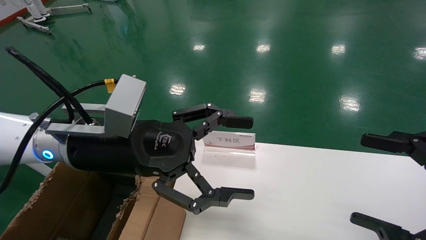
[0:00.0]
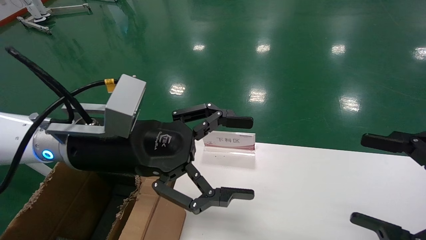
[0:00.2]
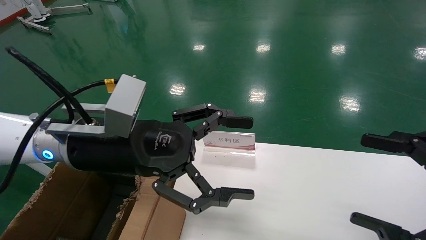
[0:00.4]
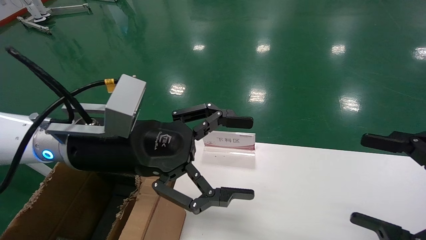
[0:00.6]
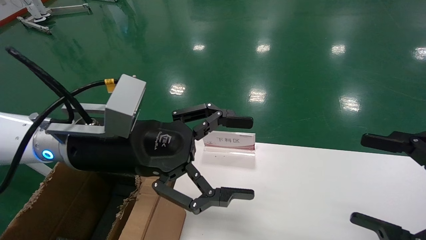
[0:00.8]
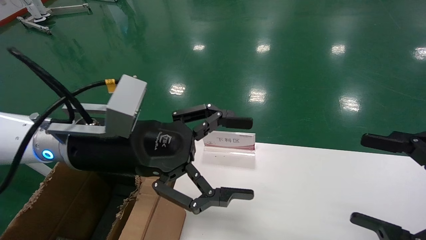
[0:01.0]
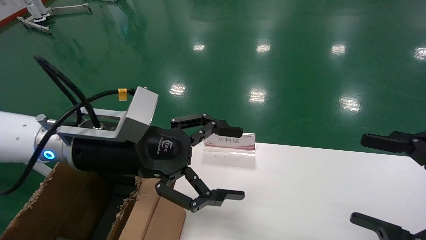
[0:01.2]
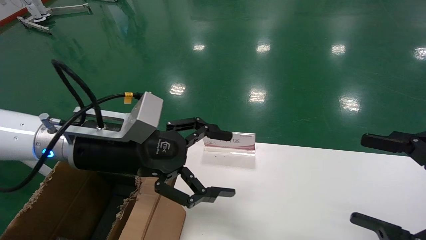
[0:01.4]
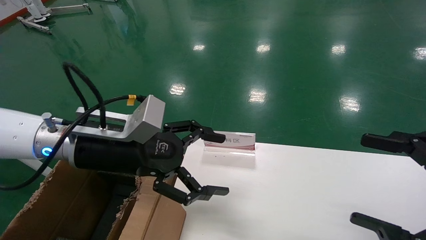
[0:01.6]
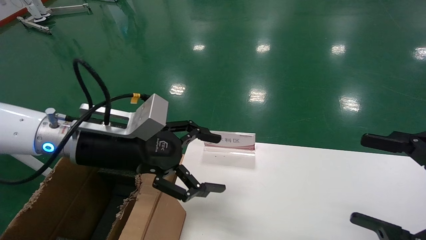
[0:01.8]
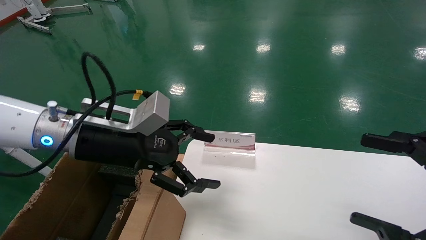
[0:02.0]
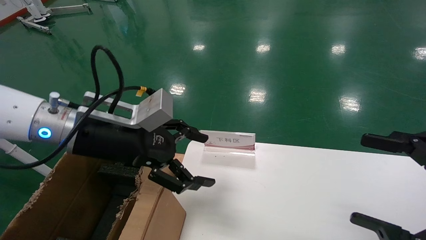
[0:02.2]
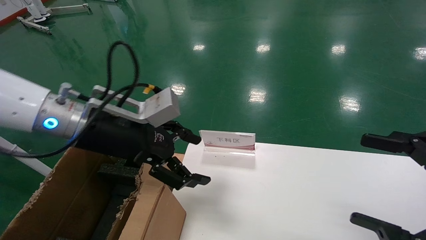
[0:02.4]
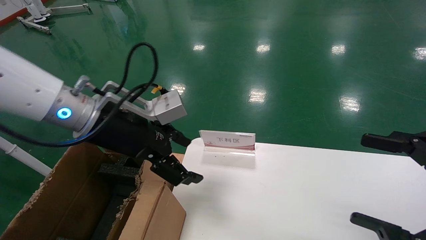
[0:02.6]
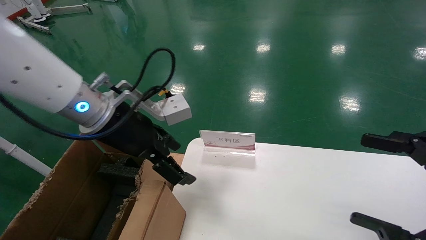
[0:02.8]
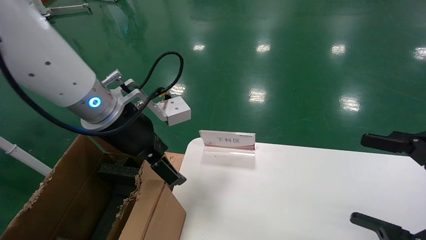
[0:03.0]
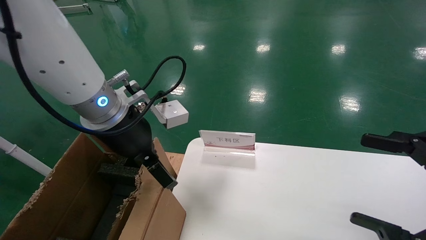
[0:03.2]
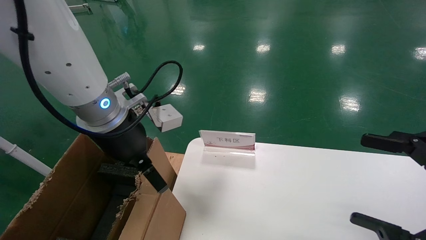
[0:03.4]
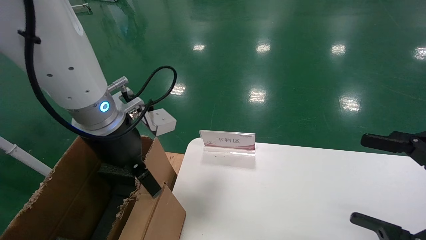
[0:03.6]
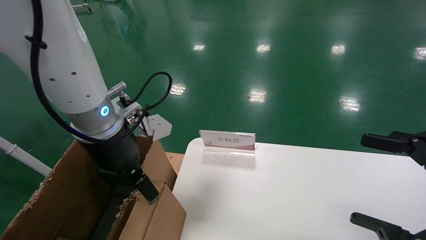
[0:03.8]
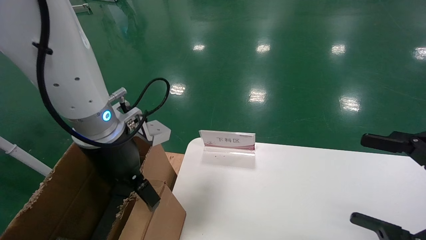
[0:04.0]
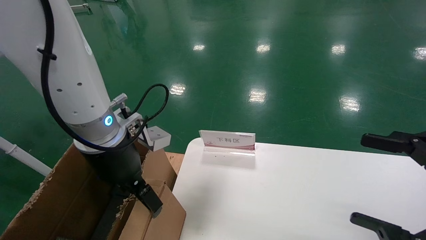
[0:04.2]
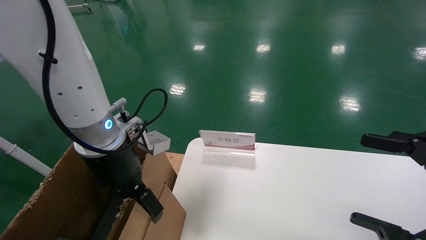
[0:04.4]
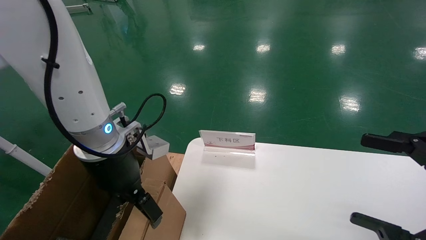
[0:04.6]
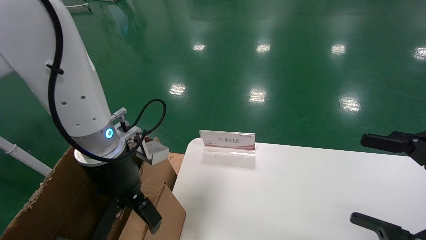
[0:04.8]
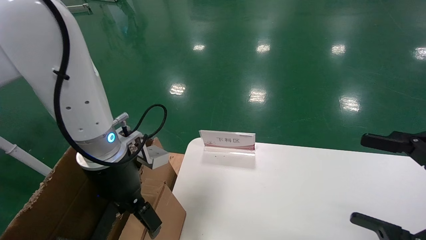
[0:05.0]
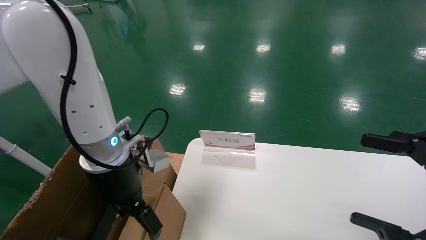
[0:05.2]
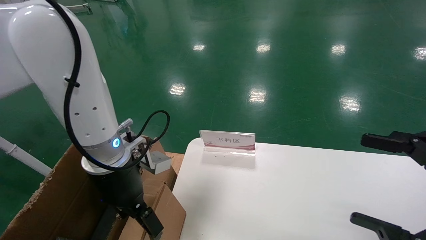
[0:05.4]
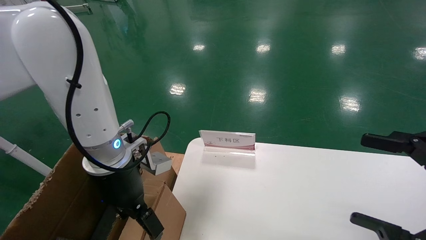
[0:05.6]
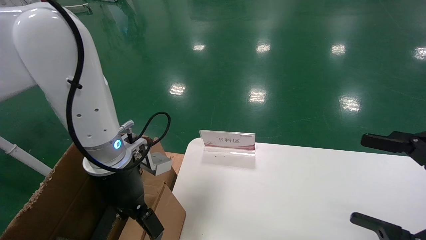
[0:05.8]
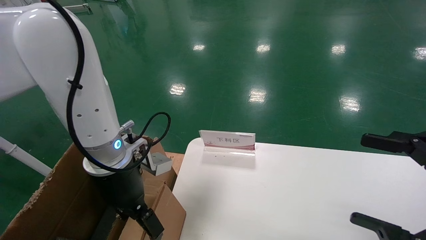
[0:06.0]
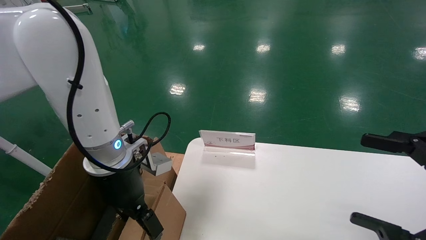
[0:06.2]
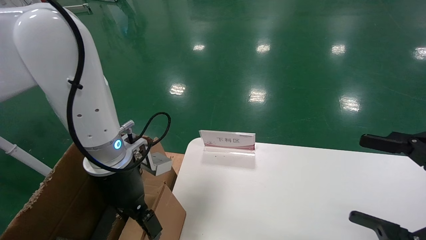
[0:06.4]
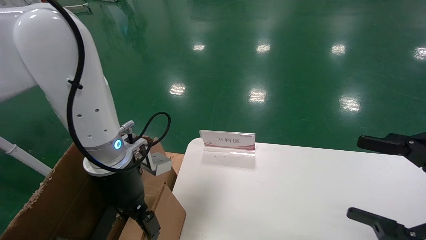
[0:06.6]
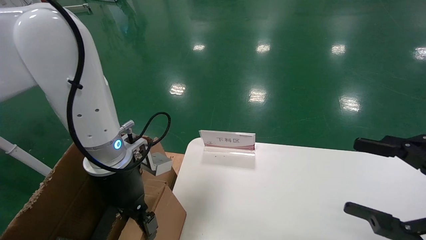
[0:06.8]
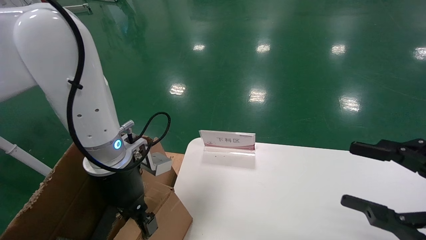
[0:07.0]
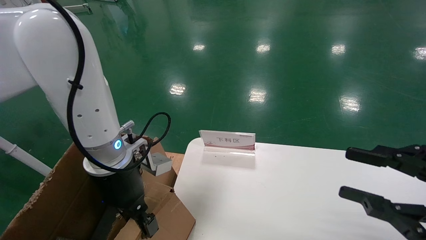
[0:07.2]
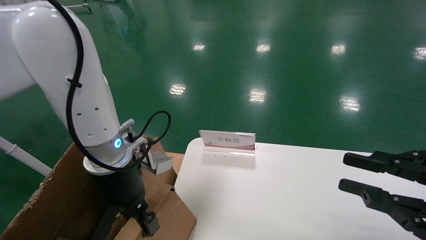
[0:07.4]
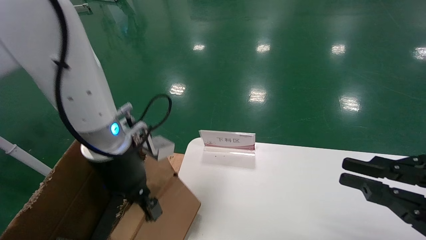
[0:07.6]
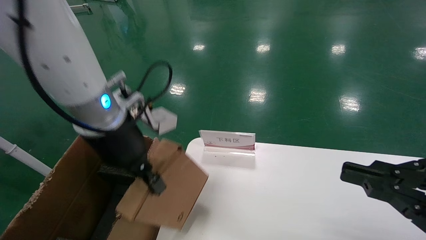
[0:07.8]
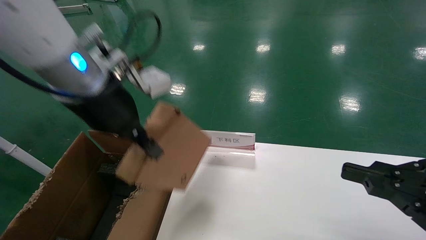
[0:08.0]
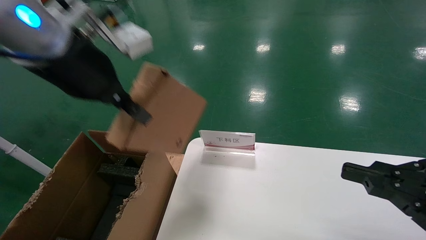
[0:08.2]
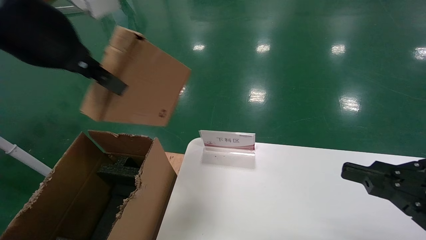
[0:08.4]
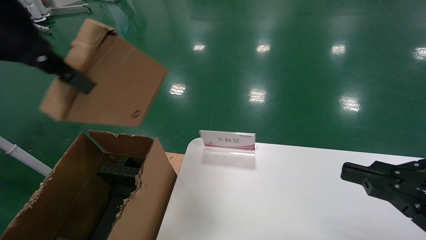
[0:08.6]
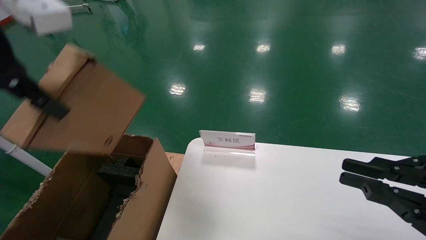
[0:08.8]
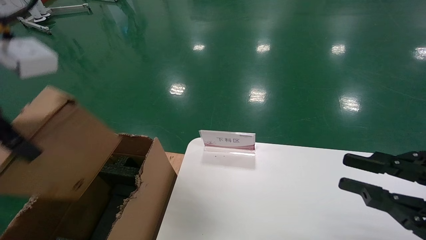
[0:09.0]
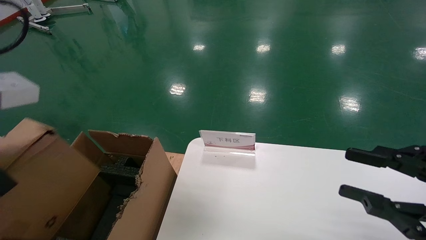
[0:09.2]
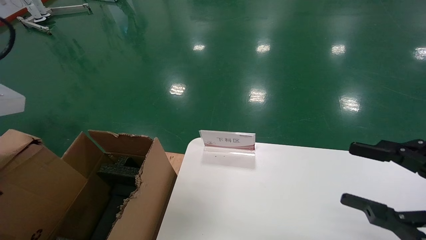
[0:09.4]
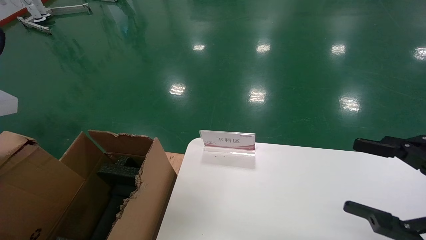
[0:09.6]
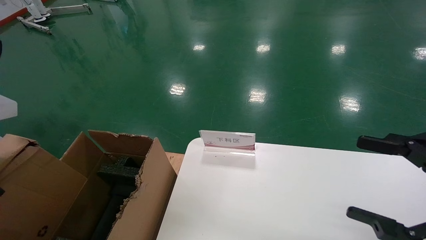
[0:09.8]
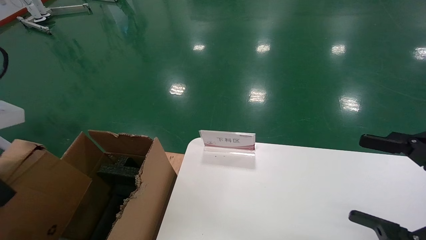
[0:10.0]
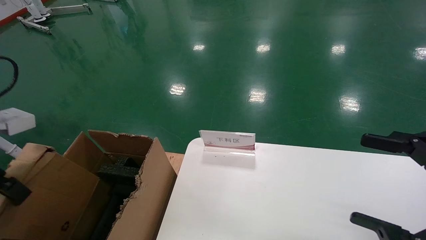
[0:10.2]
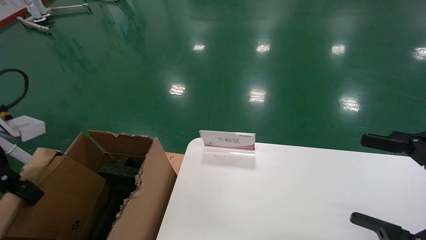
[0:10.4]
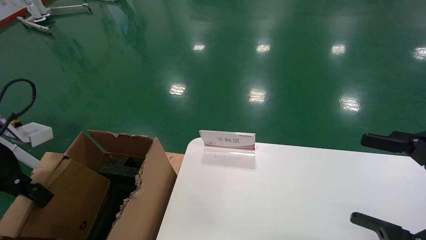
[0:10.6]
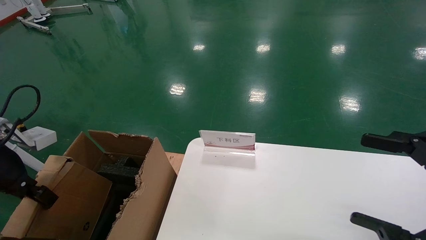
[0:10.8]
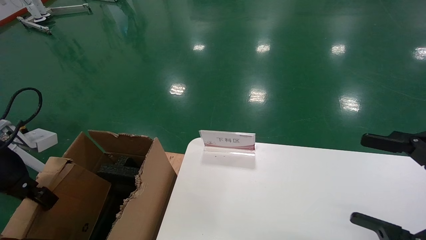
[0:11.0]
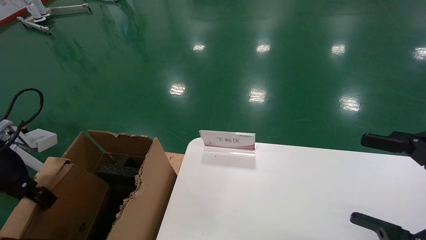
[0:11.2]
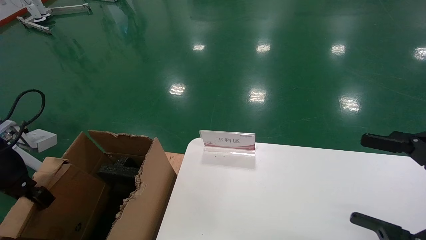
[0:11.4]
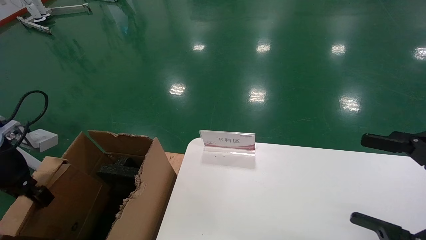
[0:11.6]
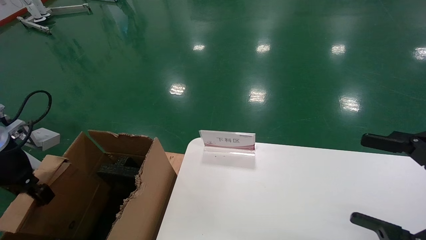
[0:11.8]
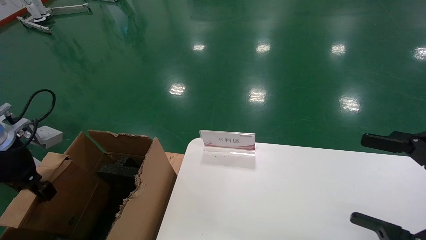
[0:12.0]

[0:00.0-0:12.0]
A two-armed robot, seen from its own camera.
Task of the whole recording: pick up the small cardboard box and load it into the large cardboard box.
Step, 0:00.0 to 0:07.0: Grasp the paper box.
0:01.6 to 0:03.0: The left gripper ends up some 5 cm from where it was.
0:04.4 to 0:06.0: The grippers stay close to where they were, moving slightly.
0:06.0 to 0:07.6: The left gripper closes, while the right gripper closes.
0:07.6 to 0:09.0: The left gripper heads upward, backward and to the left, covering roughly 20 cm.
0:09.0 to 0:10.4: The left gripper travels to the left and downward by about 20 cm; the right gripper opens.
0:10.4 to 0:12.0: The left gripper heads forward, covering about 5 cm.

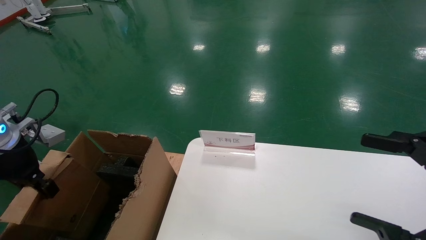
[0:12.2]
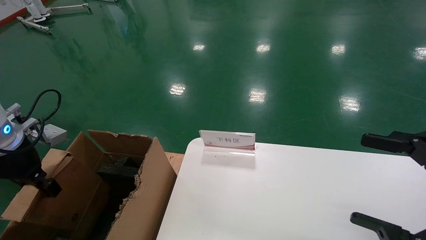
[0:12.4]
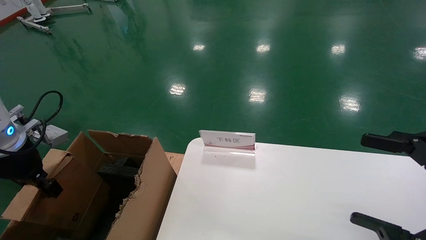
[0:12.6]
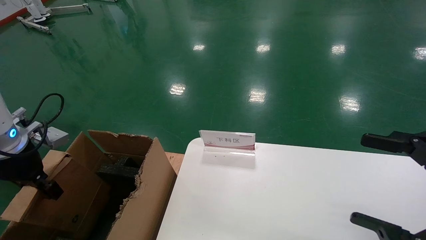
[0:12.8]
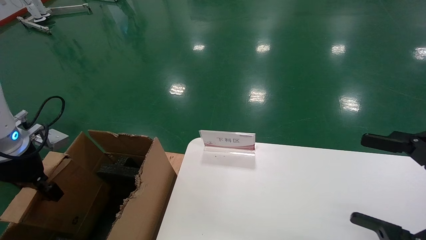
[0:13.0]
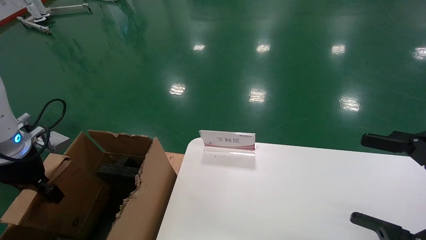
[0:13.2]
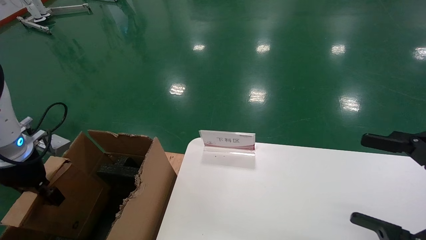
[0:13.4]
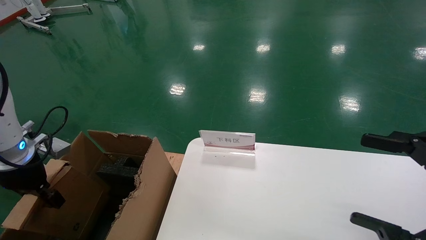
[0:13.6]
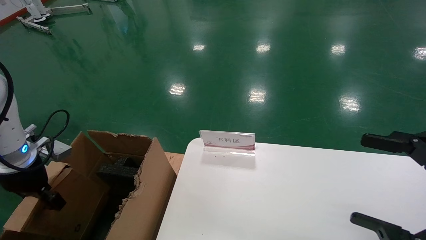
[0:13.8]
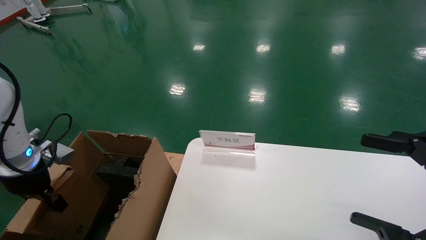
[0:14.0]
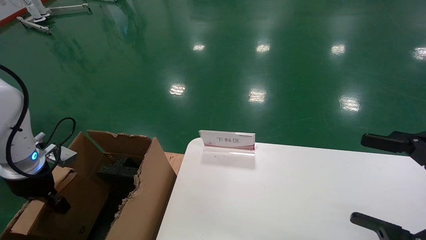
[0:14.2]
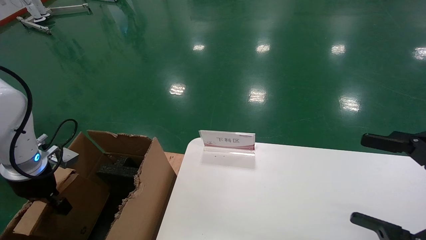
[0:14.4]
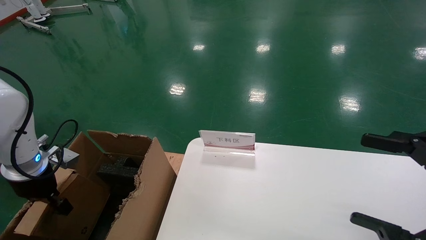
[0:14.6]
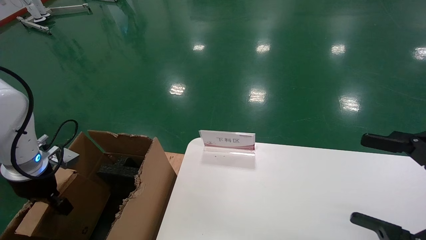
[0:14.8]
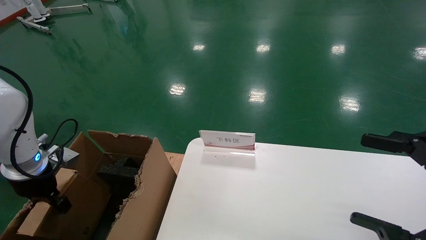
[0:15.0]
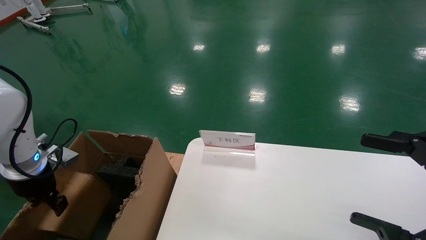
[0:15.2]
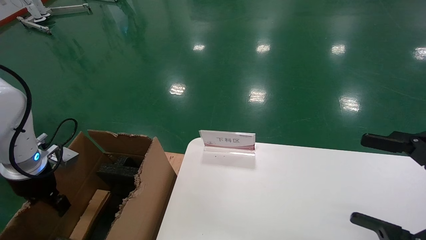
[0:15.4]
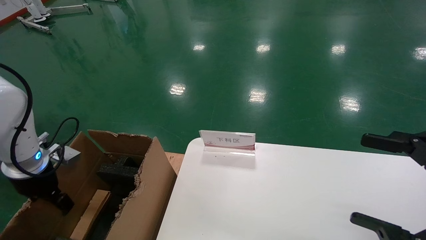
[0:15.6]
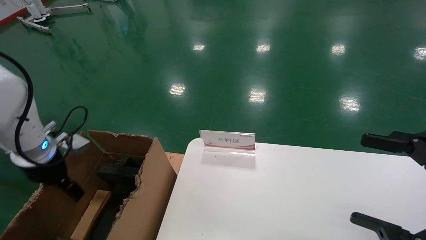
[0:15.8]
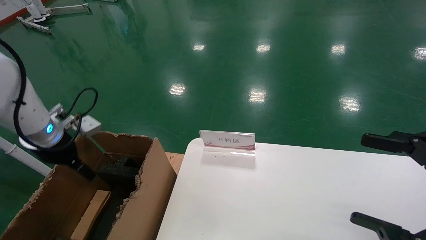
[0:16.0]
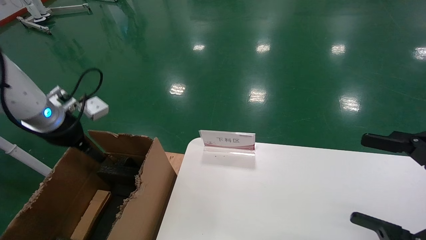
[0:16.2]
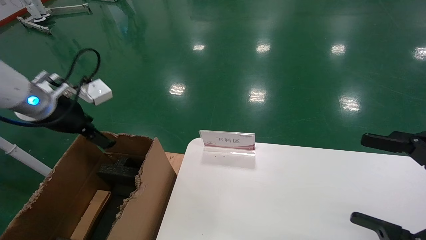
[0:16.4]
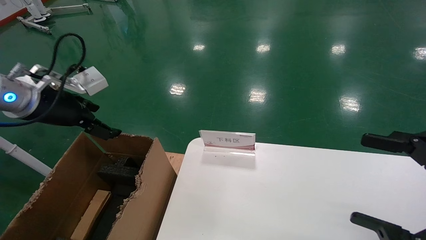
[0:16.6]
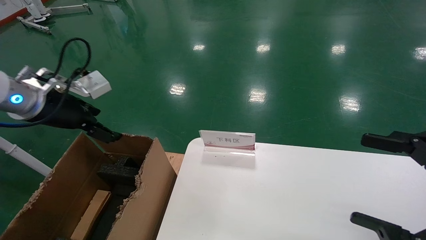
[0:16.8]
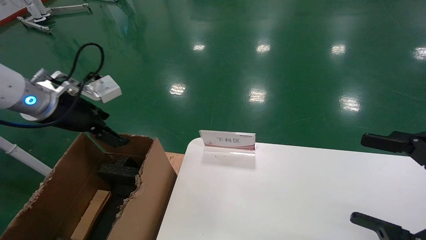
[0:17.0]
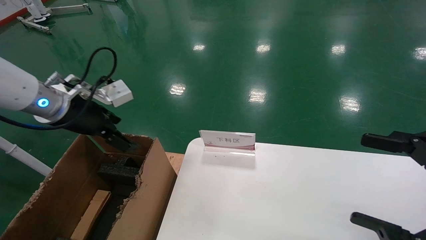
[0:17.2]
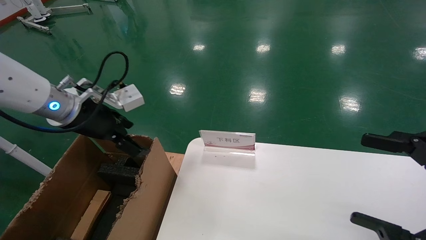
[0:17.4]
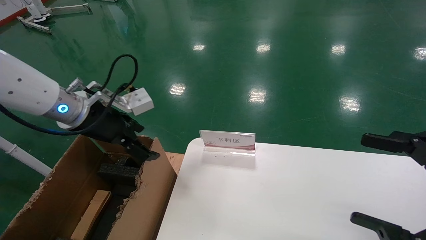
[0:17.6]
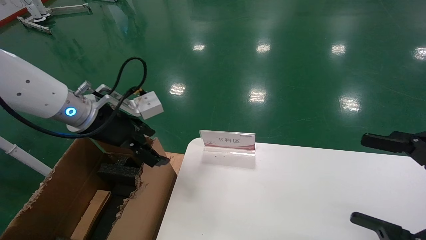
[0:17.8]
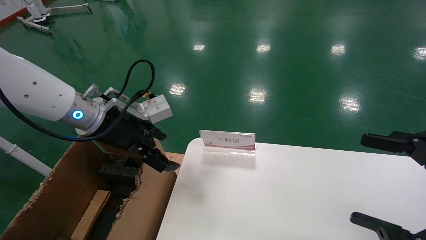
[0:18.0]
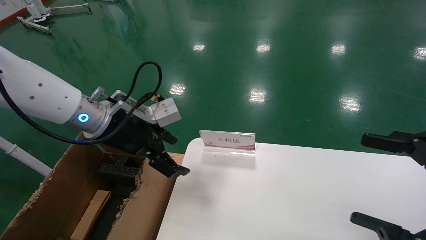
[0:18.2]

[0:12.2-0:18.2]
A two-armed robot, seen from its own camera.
Task of the whole recording: pick up the small cardboard box and load it into the large cardboard box.
Step, 0:12.2 to 0:15.0: Place the paper box in the another big box.
0:12.2 to 0:13.8: The left gripper moves some 5 cm.
0:13.8 to 0:15.2: There are only small adjustments of the grippers.
0:15.2 to 0:16.6: The left gripper moves upward and to the right, roughly 15 cm, and opens its fingers.
0:16.6 to 0:18.2: The left gripper goes roughly 10 cm to the right.
